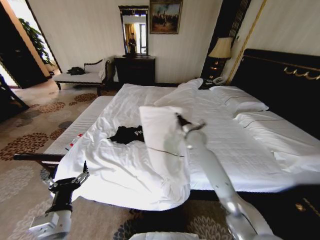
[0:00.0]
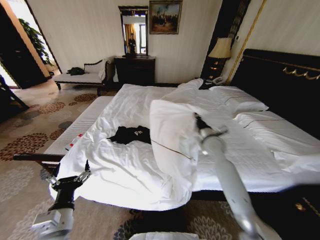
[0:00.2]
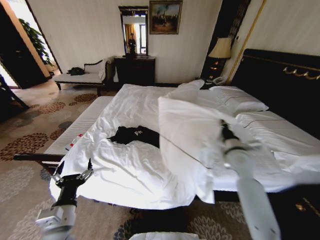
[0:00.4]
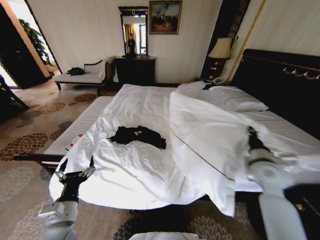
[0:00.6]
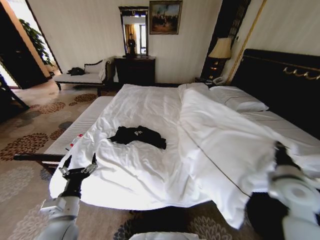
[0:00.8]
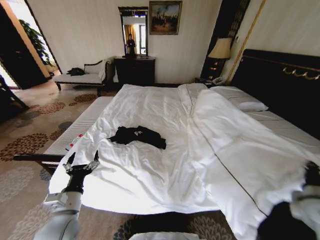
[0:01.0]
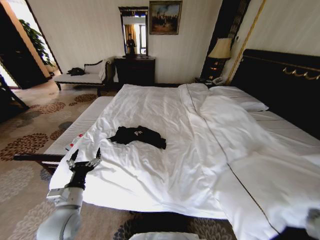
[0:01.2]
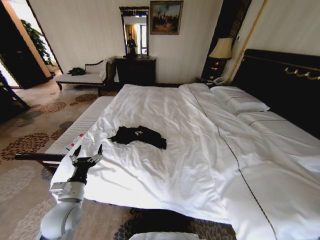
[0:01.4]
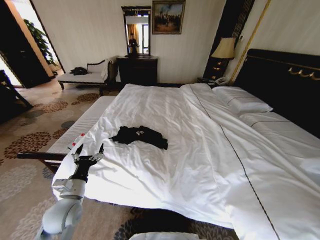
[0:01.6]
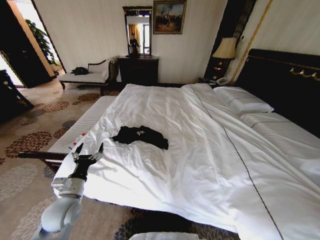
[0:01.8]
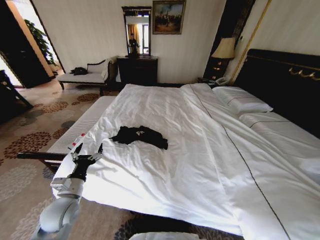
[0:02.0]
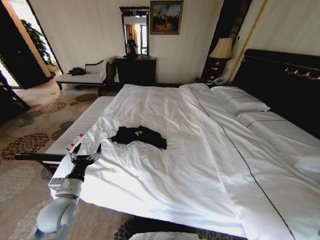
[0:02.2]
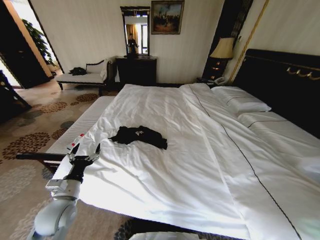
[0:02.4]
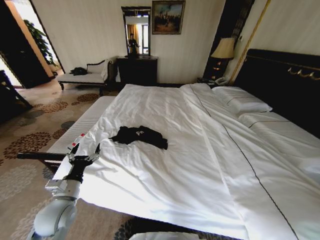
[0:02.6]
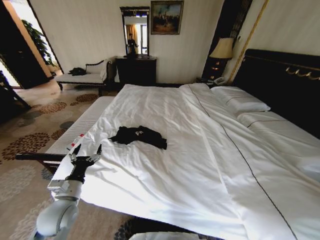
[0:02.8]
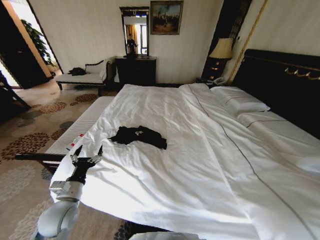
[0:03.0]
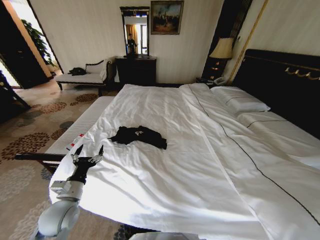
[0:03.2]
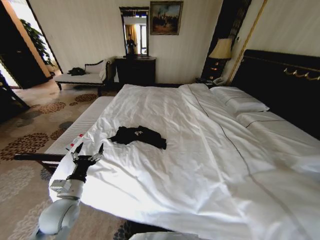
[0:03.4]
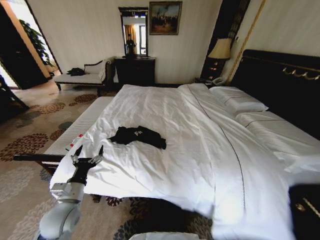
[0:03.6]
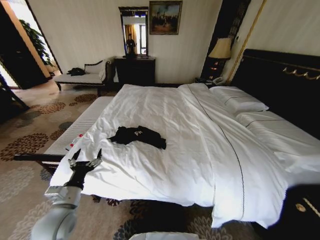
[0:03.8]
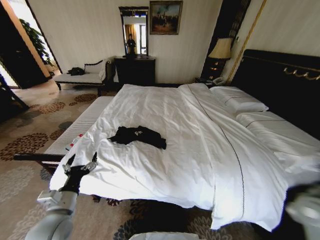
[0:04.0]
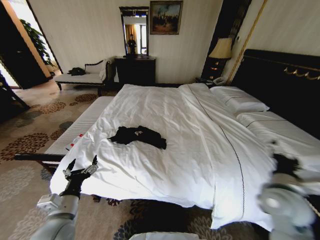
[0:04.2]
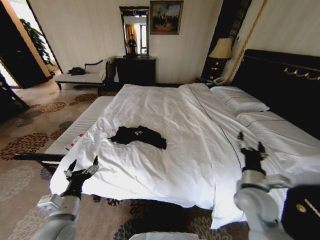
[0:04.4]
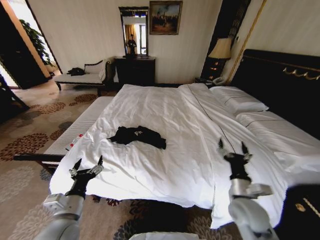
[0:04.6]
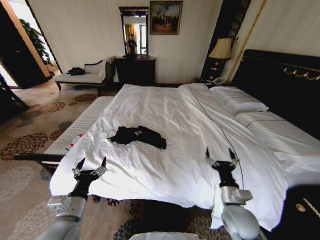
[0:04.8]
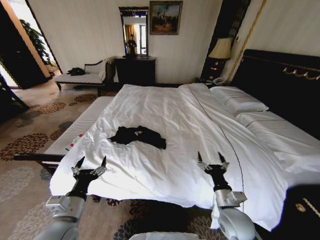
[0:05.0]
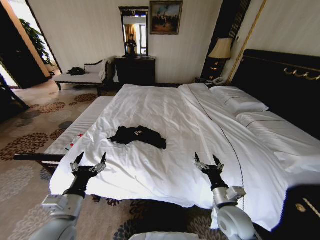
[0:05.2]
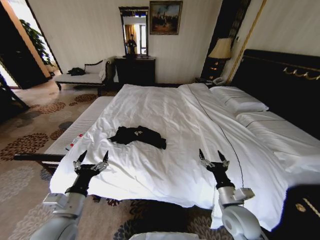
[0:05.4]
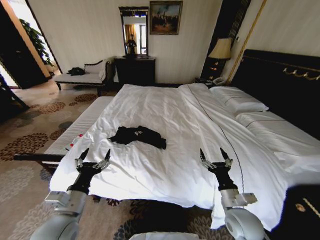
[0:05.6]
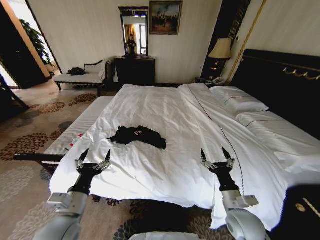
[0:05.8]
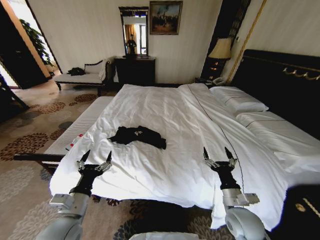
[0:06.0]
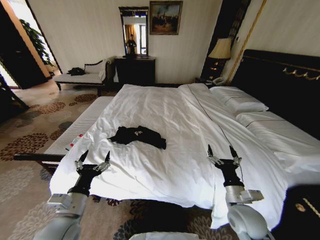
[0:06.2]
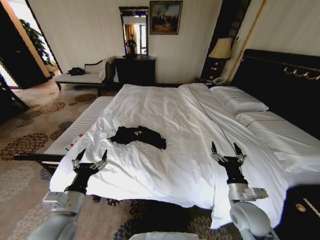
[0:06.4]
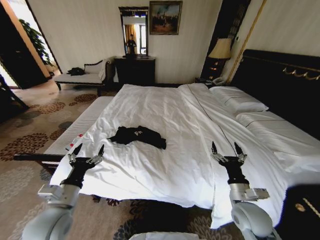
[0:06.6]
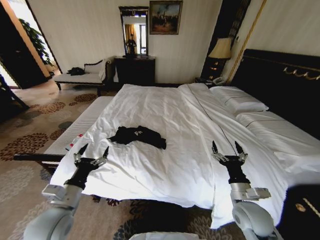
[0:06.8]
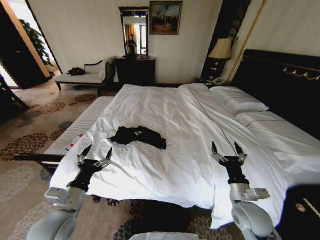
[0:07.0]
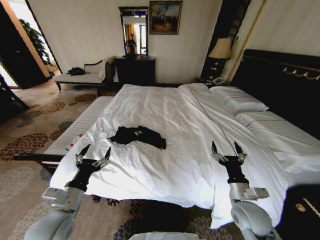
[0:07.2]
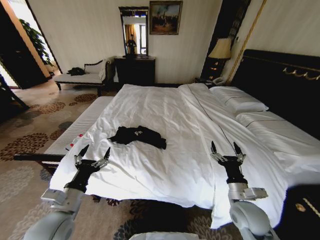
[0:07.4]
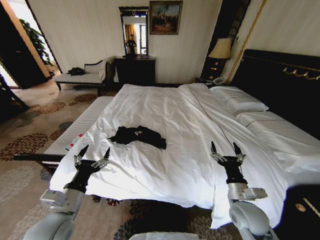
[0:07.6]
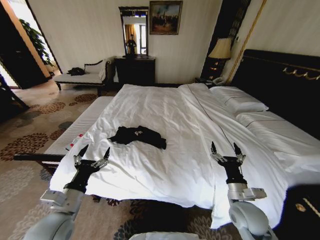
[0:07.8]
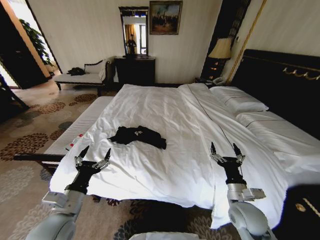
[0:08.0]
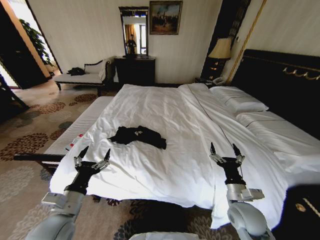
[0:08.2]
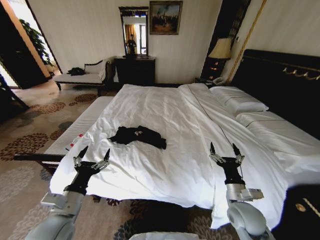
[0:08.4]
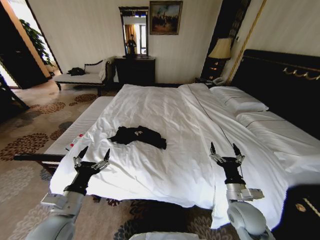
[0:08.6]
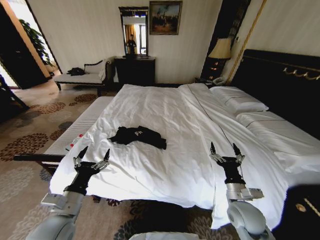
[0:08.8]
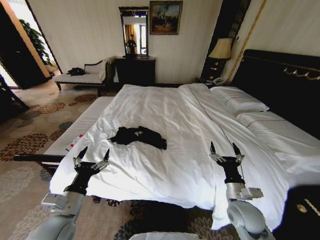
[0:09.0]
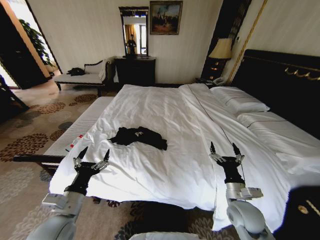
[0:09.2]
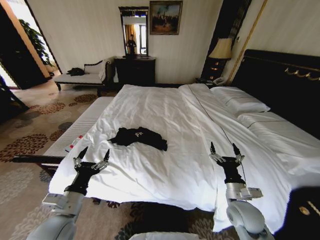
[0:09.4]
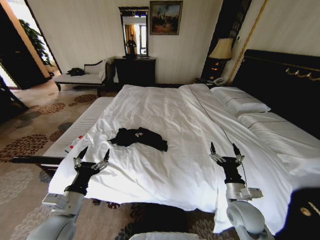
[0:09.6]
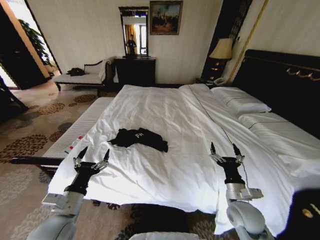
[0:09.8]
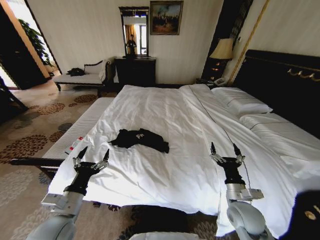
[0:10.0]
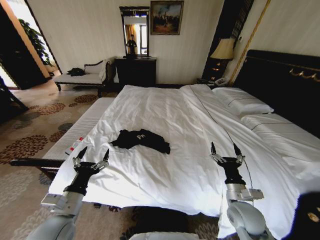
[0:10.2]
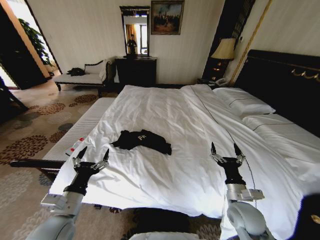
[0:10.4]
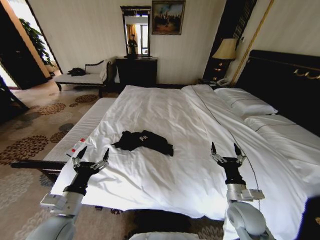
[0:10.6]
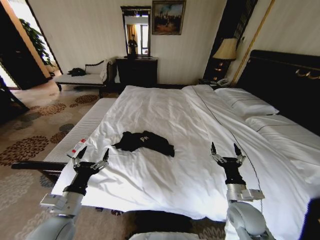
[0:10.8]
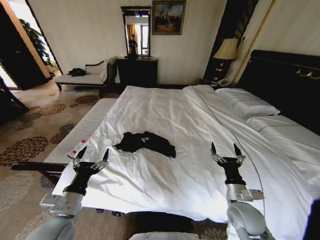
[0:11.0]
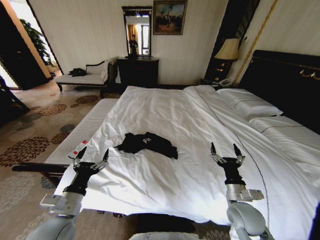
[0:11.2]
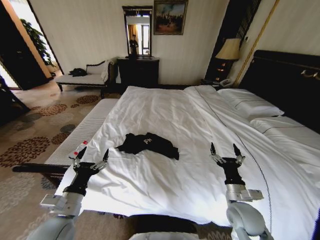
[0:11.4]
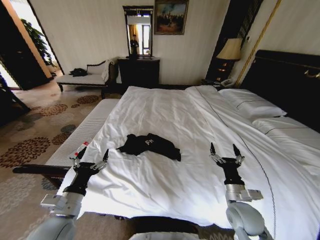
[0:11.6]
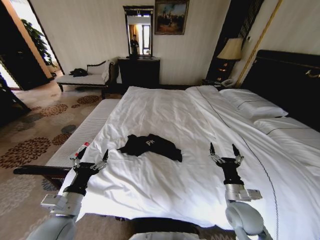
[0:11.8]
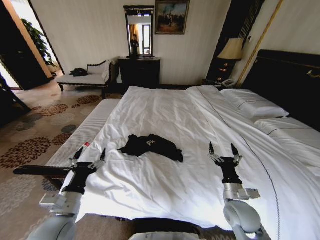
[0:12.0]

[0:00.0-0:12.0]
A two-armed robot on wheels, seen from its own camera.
Task of the whole recording: Fold the clothes on the bed.
0:00.0 to 0:01.6: The left gripper shifts some 10 cm forward. Meanwhile the right gripper travels backward and to the right by roughly 50 cm.
0:01.6 to 0:03.0: The right gripper travels upward and to the right by roughly 10 cm, and opens.
0:03.0 to 0:04.4: The right gripper goes roughly 30 cm to the left and forward, and opens its fingers, while the left gripper is displaced backward by roughly 5 cm.
0:04.4 to 0:06.0: The right gripper moves downward, some 5 cm.
0:06.0 to 0:07.6: There are only small adjustments of the grippers.
0:07.6 to 0:10.4: Both grippers stay about where they are.

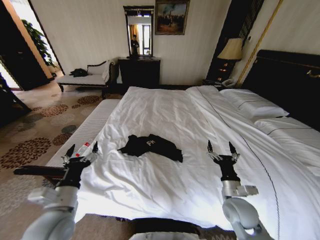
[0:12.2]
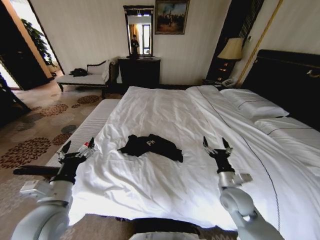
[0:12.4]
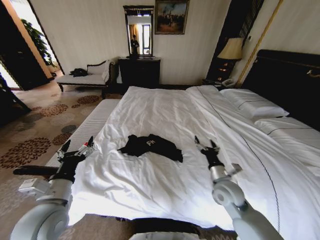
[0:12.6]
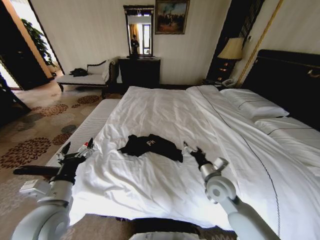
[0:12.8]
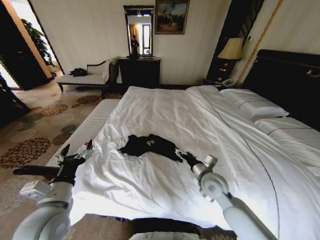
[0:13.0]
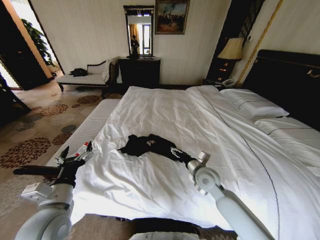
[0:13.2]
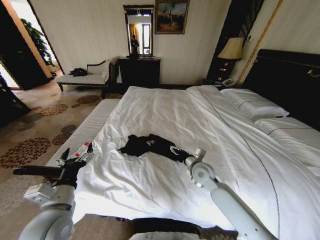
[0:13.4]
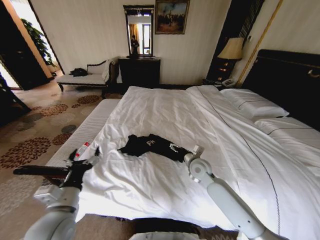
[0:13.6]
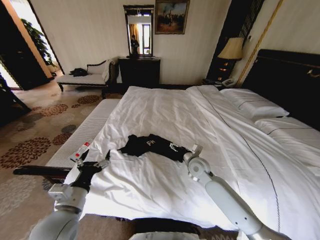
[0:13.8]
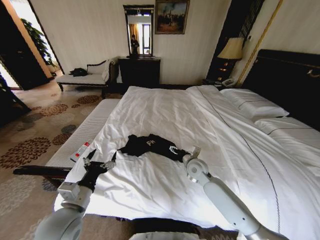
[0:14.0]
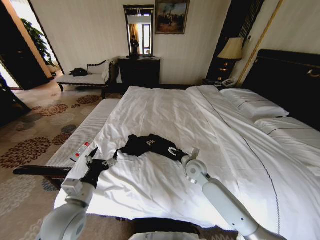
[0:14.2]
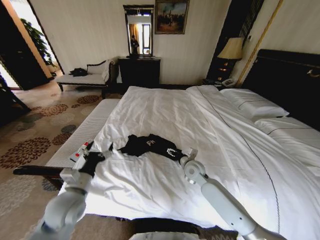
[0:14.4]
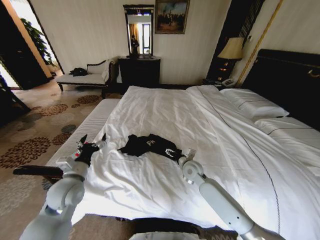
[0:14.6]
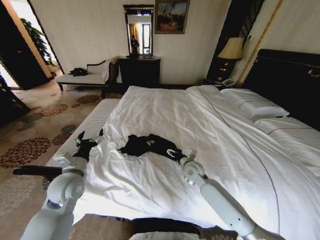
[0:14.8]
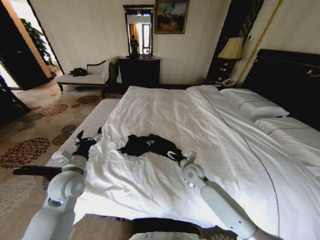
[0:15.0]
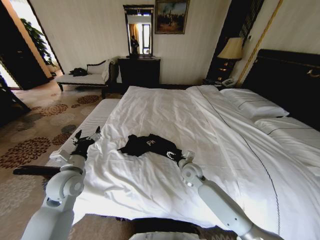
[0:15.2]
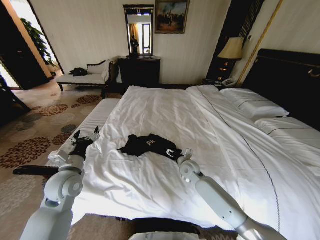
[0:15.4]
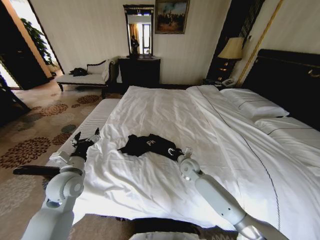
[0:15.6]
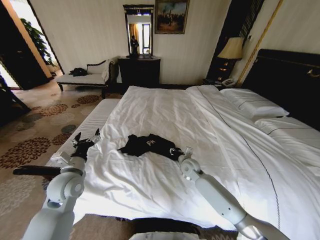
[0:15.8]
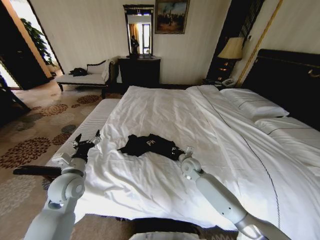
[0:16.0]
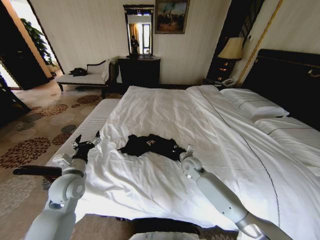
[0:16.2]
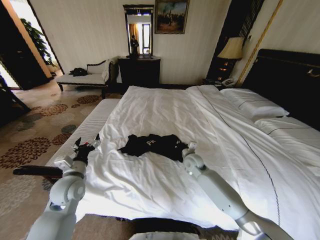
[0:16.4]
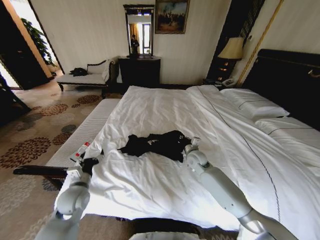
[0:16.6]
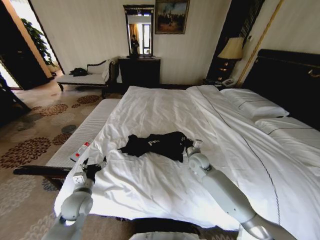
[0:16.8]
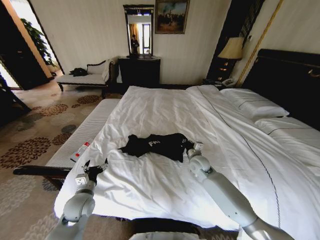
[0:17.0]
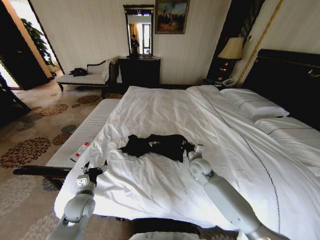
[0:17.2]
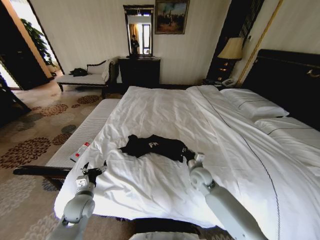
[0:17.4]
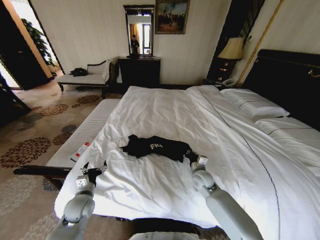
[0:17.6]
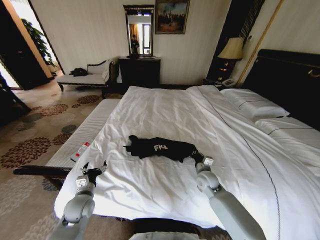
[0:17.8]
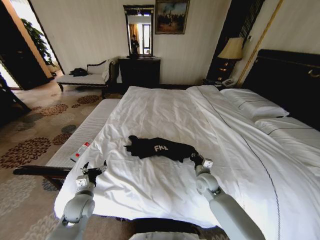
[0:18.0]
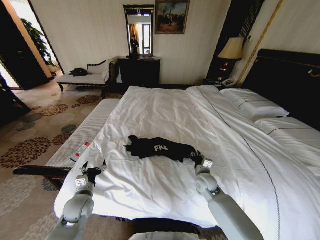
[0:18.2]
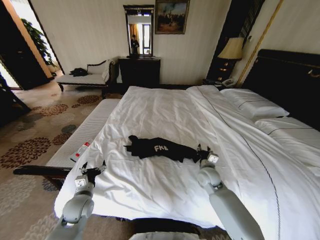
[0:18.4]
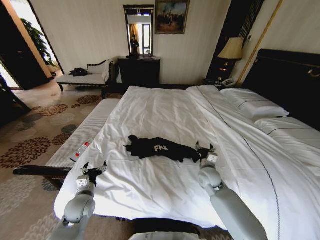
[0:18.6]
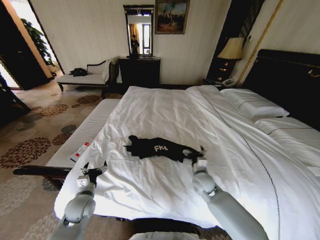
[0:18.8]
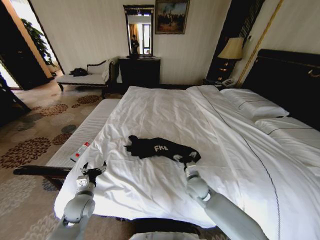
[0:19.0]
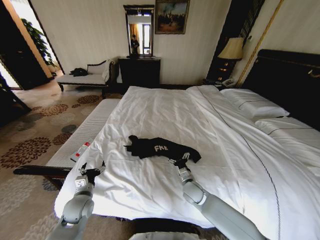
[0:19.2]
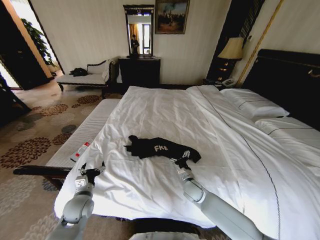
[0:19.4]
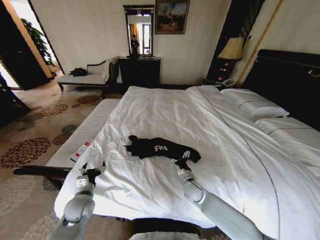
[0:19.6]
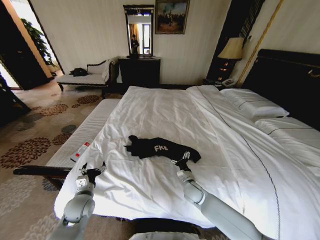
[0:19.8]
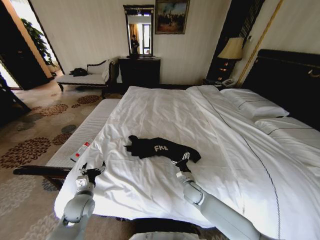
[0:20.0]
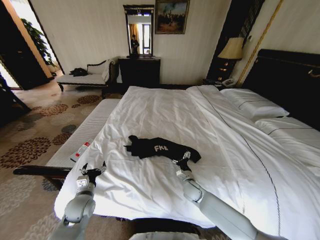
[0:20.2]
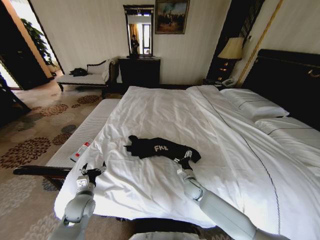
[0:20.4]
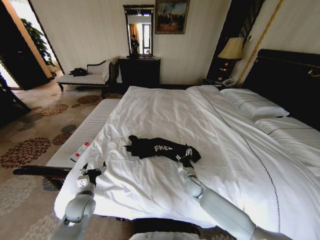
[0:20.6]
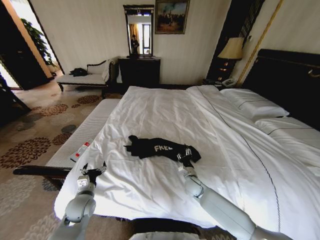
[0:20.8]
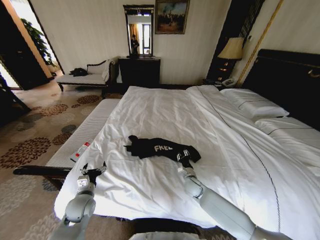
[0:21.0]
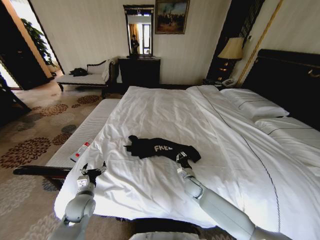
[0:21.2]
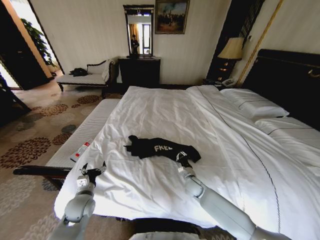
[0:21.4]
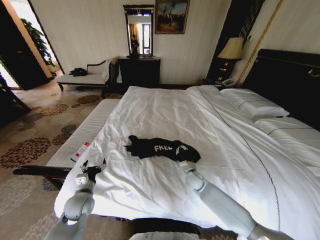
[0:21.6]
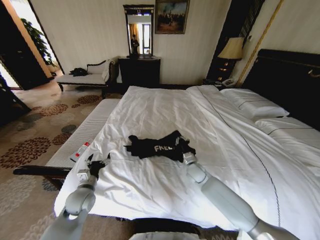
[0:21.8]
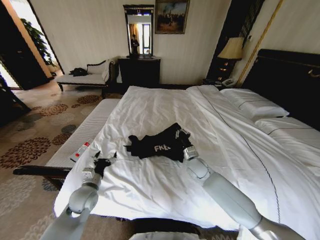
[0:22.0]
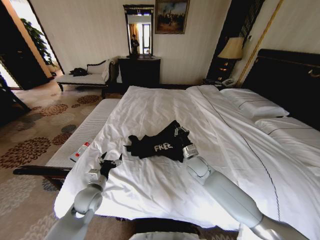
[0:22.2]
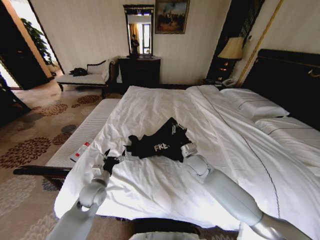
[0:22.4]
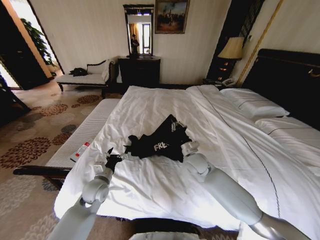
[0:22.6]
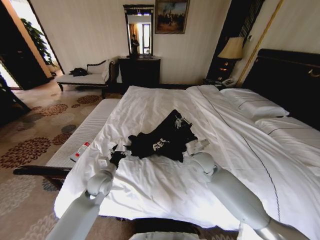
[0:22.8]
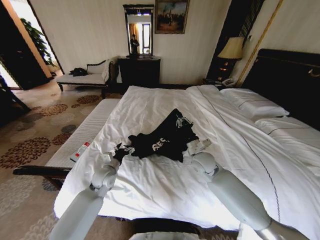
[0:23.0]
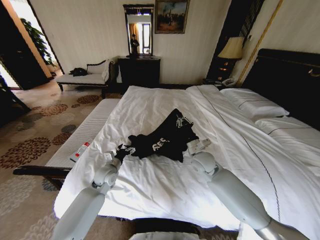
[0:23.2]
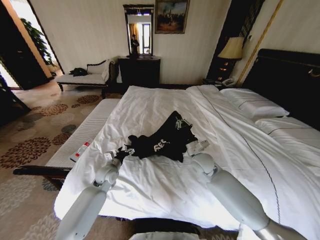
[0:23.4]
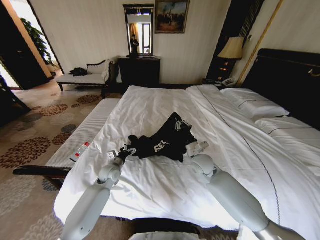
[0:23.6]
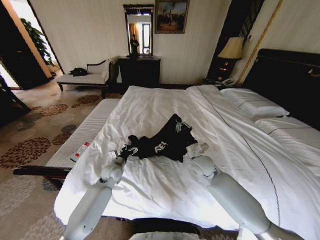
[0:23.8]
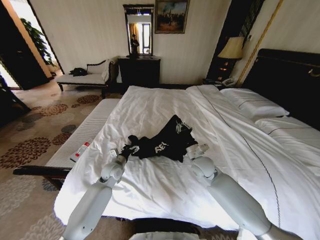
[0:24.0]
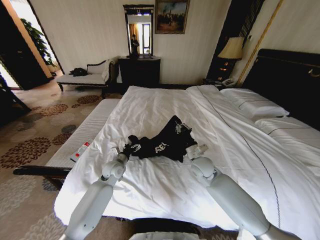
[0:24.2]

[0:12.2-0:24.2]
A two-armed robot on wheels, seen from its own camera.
Task of the whole recording: Fold the clothes on the bed.
0:12.2 to 0:13.8: The right gripper goes about 20 cm forward and to the left.
0:13.8 to 0:15.2: The left gripper heads forward, covering roughly 10 cm, while the right gripper ends up about 5 cm from where it was.
0:15.2 to 0:16.6: The right gripper is displaced forward by some 5 cm, and closes up, while the left gripper moves downward, approximately 5 cm.
0:16.6 to 0:18.2: The left gripper travels downward by roughly 5 cm; the right gripper goes approximately 10 cm backward and downward.
0:18.2 to 0:19.8: The right gripper travels downward by about 5 cm, and opens up.
0:19.8 to 0:21.2: The right gripper closes up.
0:21.2 to 0:22.6: The right gripper shifts approximately 15 cm upward. Meanwhile the left gripper moves forward and to the right, some 5 cm.
0:22.6 to 0:24.2: The left gripper travels forward by about 10 cm.
